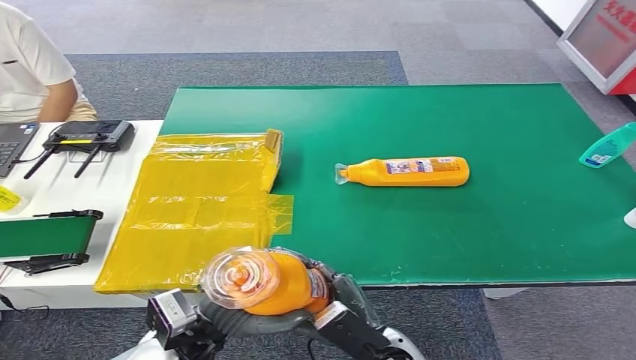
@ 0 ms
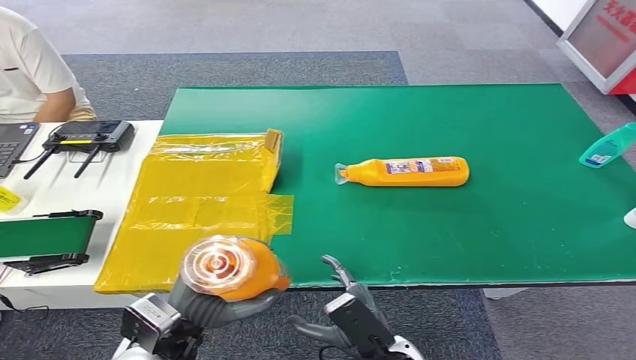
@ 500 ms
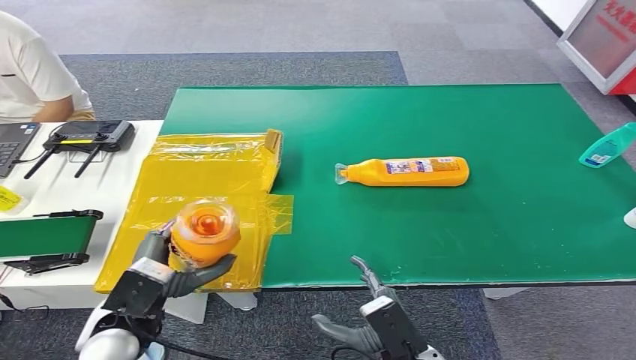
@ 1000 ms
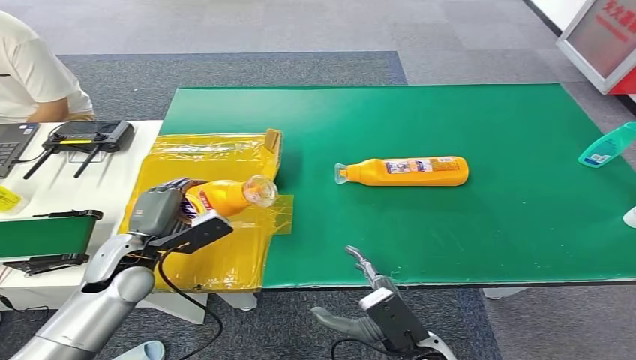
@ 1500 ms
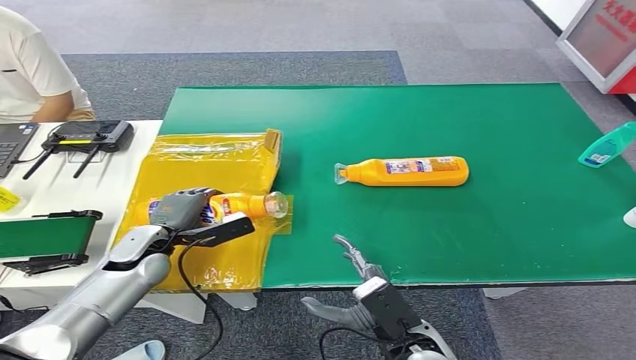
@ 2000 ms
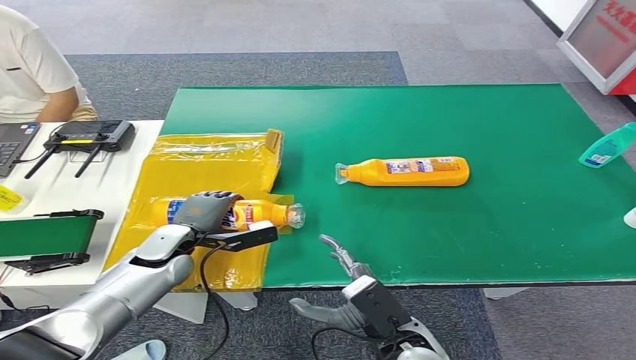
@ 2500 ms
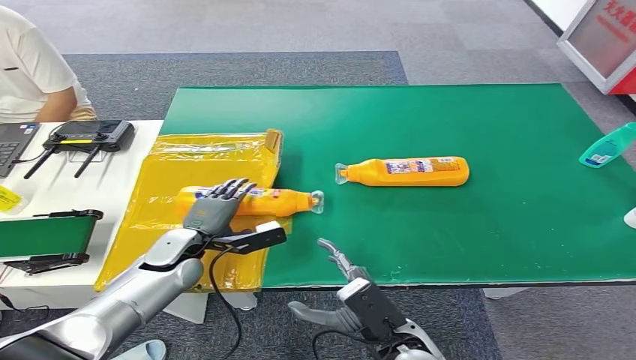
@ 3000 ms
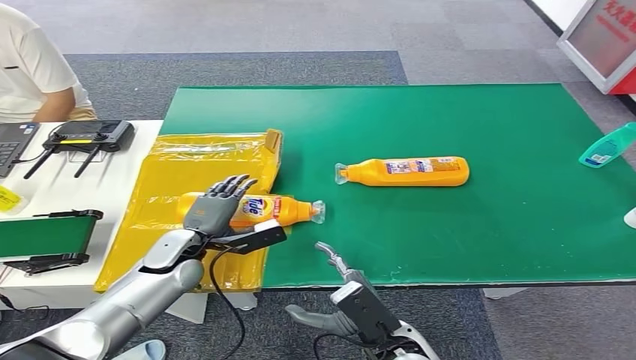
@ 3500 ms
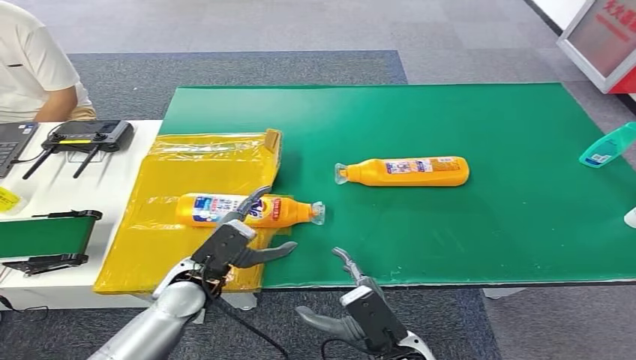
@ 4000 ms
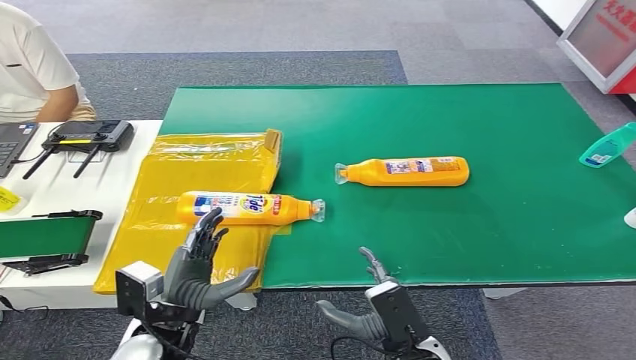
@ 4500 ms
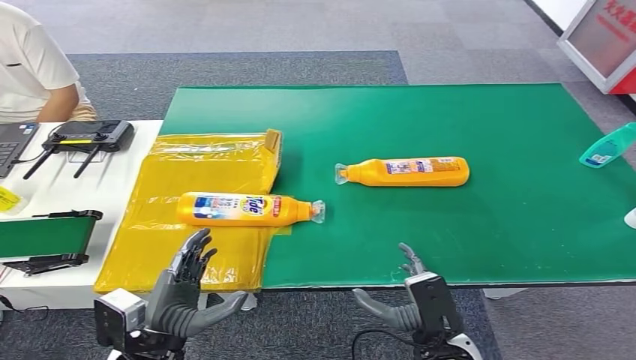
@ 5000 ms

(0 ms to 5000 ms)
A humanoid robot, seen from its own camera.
Step, 0 ms - 5000 ms: Turn the bottle to the front side.
0 ms - 2500 ms: The left hand is displaced forward and to the left by roughly 20 cm.
2500 ms - 5000 ms: The right hand shifts about 5 cm to the right, while the left hand goes roughly 20 cm backward.
